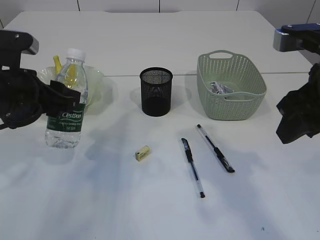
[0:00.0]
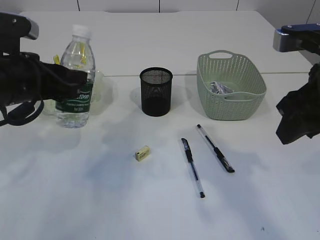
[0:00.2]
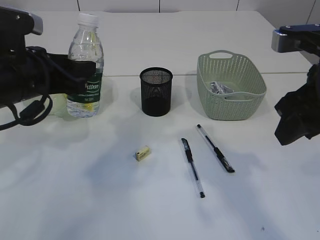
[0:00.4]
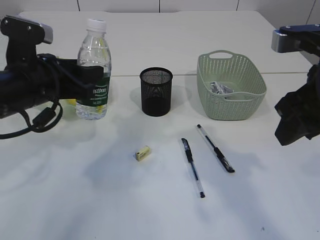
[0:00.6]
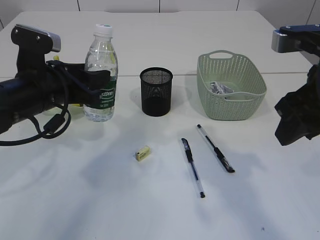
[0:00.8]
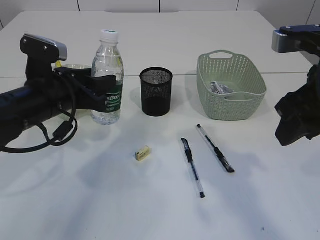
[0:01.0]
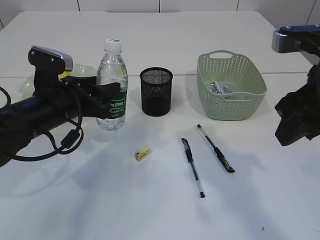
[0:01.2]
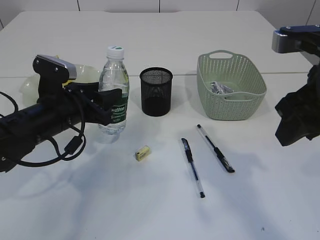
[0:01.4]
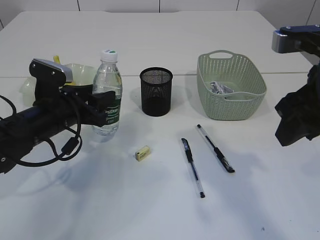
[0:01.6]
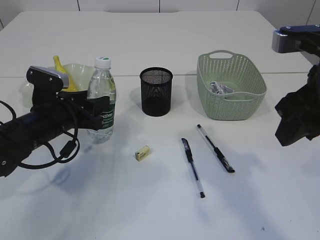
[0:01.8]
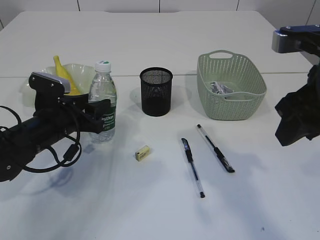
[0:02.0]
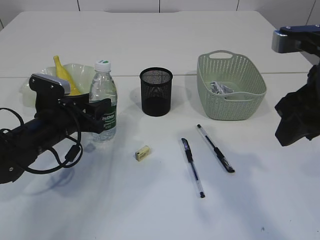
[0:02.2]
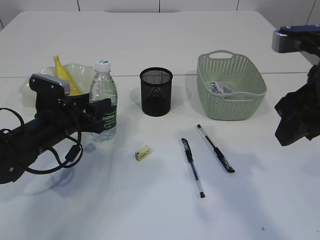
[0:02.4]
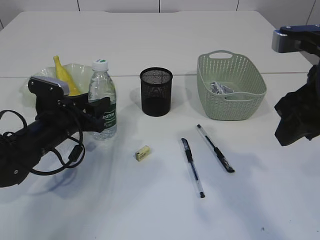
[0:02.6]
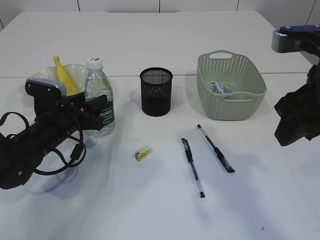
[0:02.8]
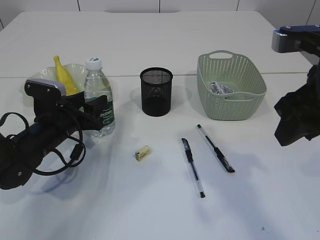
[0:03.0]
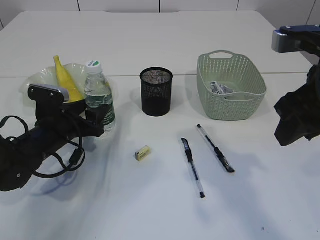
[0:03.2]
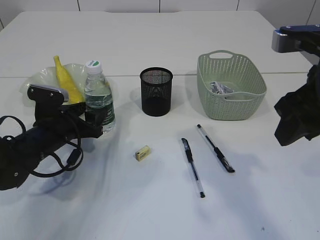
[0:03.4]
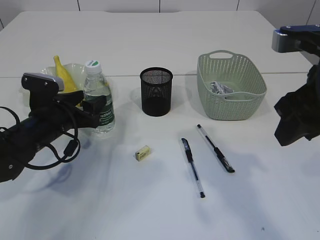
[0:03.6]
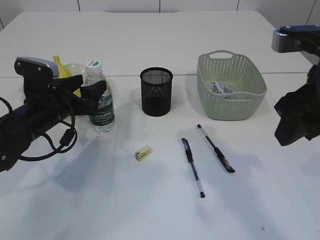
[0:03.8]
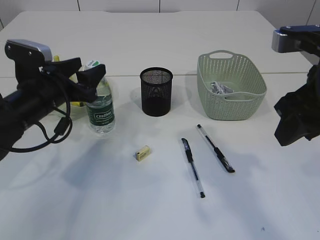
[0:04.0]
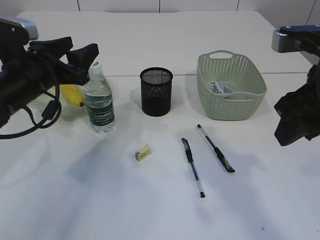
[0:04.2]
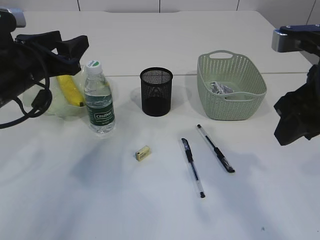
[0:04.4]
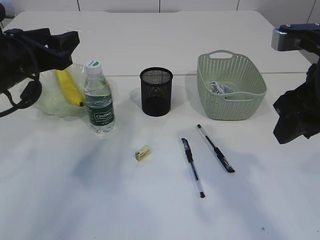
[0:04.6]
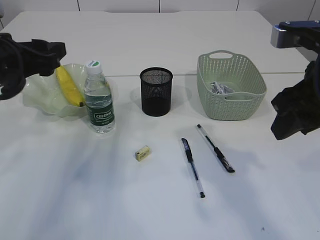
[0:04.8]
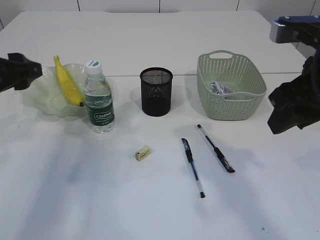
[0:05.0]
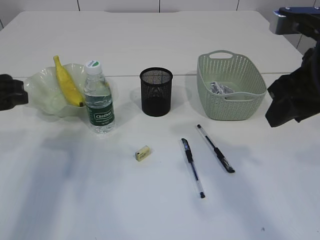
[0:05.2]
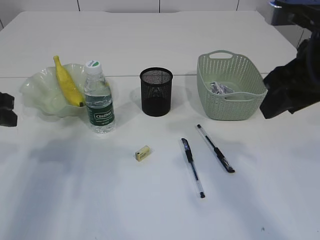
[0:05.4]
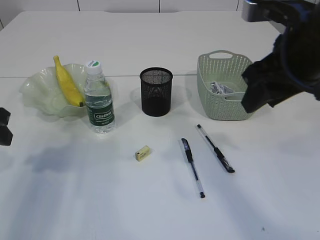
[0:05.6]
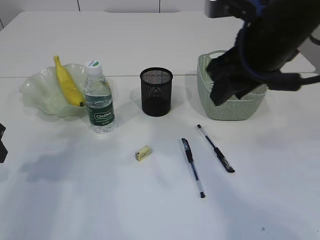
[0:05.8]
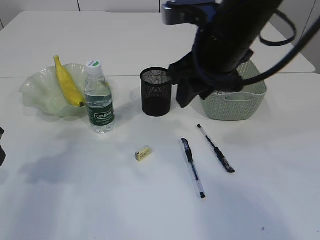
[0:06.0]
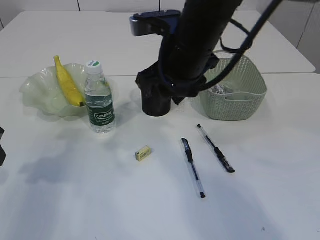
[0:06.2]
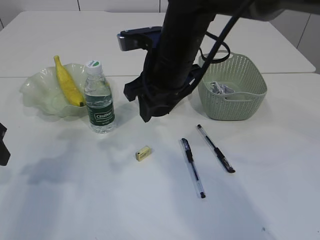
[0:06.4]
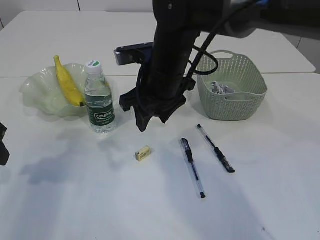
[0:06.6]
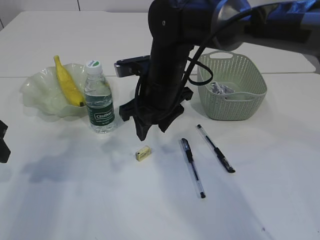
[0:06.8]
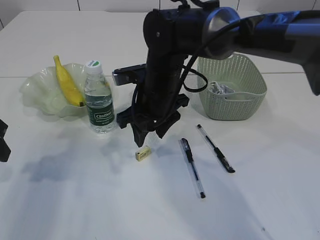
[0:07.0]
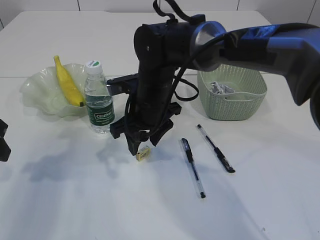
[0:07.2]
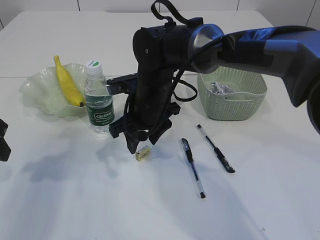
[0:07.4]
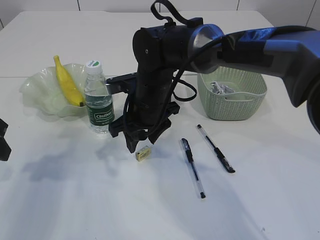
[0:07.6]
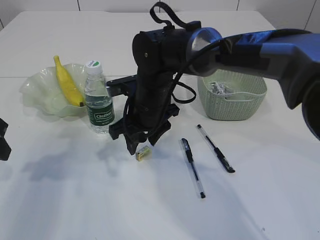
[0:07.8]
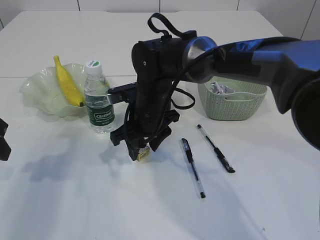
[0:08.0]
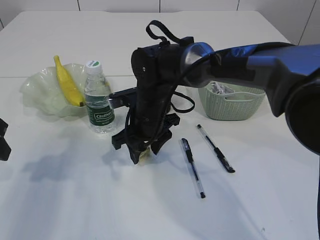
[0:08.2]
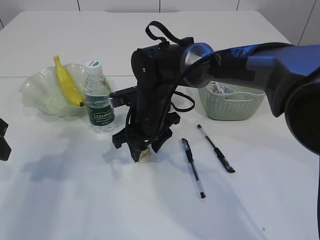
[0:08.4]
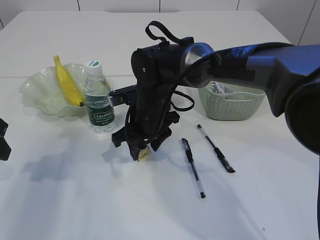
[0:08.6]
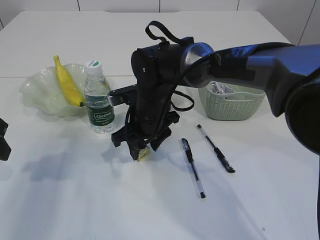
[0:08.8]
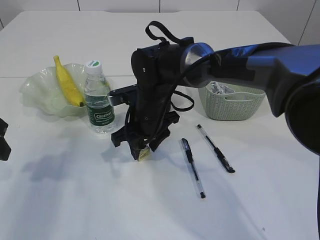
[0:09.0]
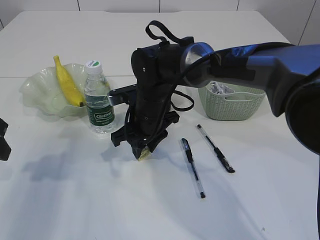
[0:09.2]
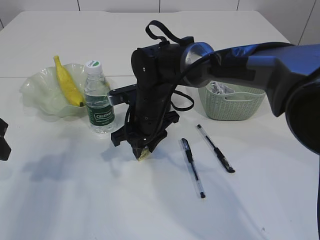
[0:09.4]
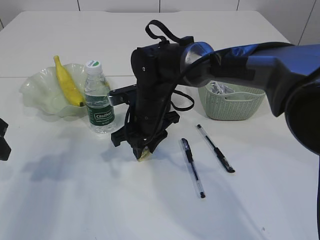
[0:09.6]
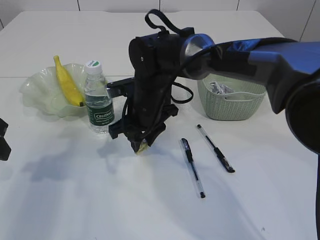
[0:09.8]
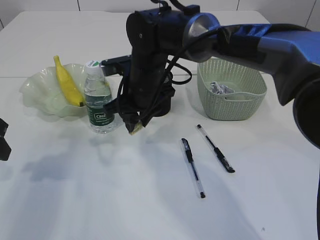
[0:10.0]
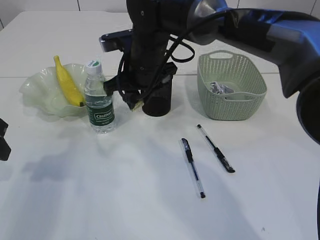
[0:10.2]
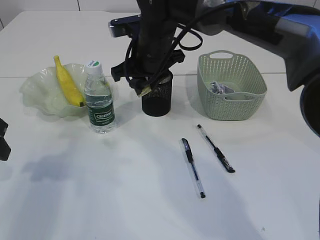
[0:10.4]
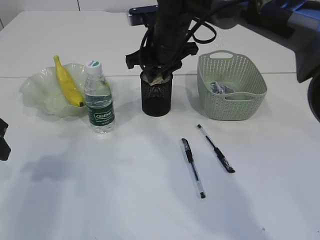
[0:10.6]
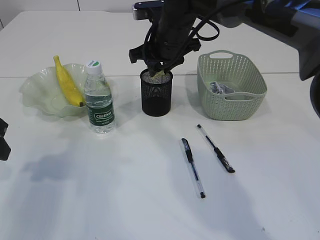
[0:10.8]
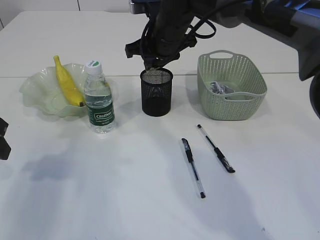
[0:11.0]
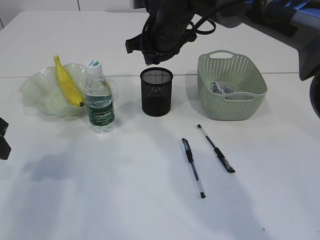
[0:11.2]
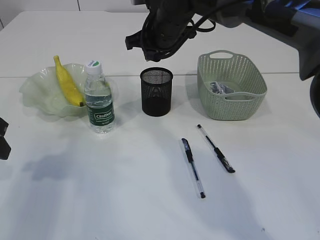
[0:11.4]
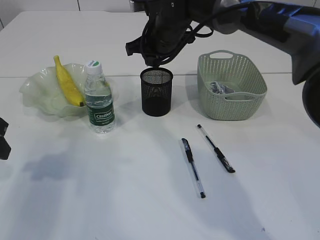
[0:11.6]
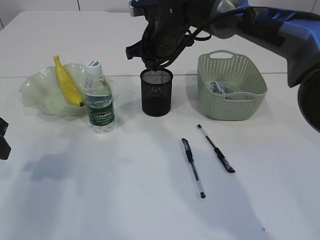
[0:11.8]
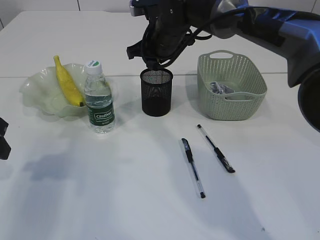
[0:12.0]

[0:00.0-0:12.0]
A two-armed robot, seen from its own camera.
Step, 0:00.0 to 0:04.2: Place the bottle.
Step, 0:04.4 to 0:10.0: Pick up the eraser.
0:00.0 to 0:01.6: The left gripper travels downward by some 10 cm.
0:01.6 to 0:03.0: The left gripper goes about 5 cm downward.
0:03.0 to 0:04.4: The left gripper goes some 15 cm upward.
0:04.4 to 0:06.0: The left gripper heads to the left and backward, covering approximately 10 cm. The right gripper goes some 15 cm to the left and forward.
0:06.0 to 0:07.6: The right gripper goes approximately 20 cm downward, to the left and forward.
0:07.6 to 0:09.0: The grippers stay close to where they were, moving slightly.
0:09.0 to 0:10.4: The right gripper heads upward, covering roughly 10 cm.
0:10.4 to 0:12.0: The right gripper heads forward, covering some 5 cm.

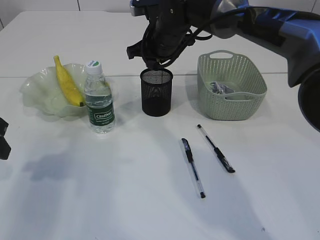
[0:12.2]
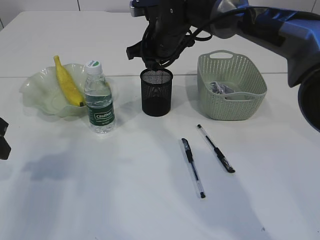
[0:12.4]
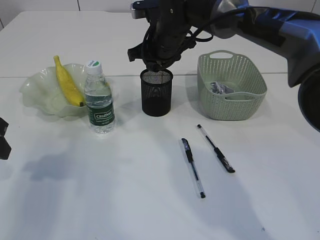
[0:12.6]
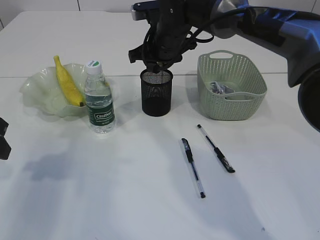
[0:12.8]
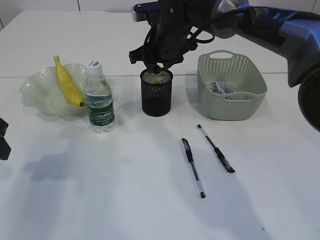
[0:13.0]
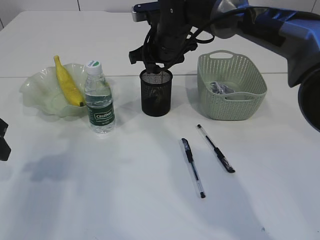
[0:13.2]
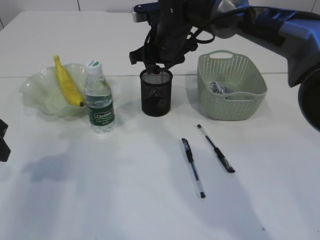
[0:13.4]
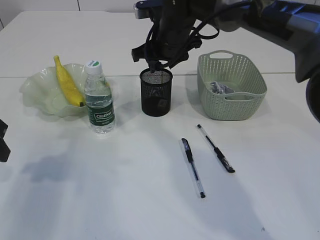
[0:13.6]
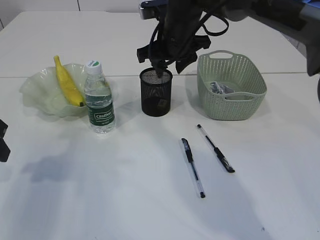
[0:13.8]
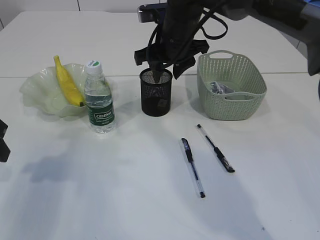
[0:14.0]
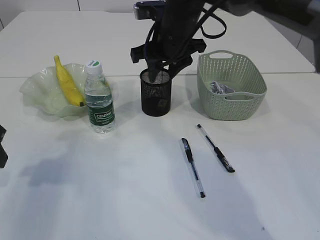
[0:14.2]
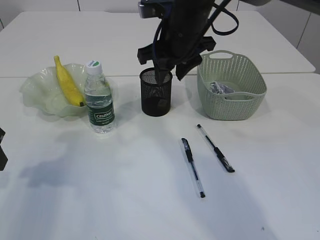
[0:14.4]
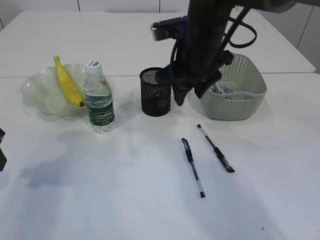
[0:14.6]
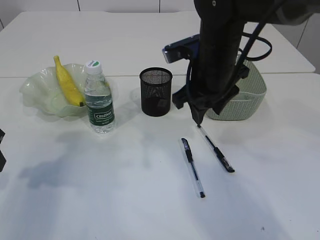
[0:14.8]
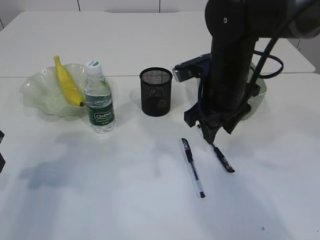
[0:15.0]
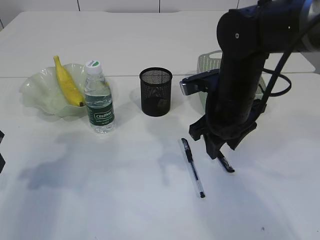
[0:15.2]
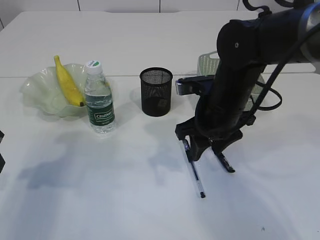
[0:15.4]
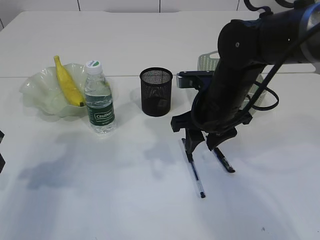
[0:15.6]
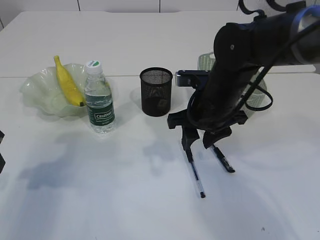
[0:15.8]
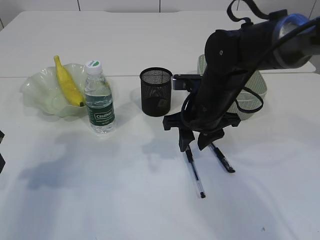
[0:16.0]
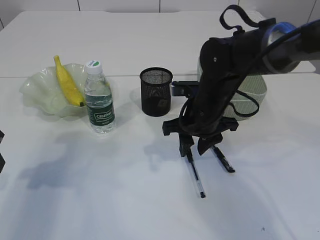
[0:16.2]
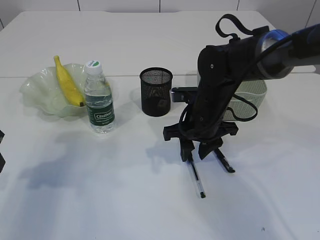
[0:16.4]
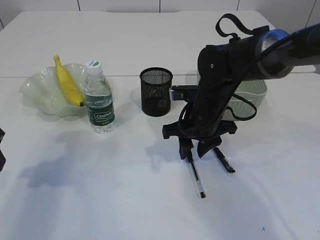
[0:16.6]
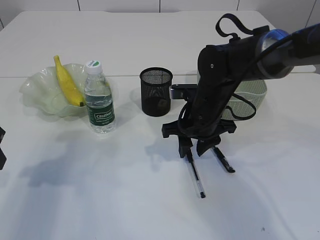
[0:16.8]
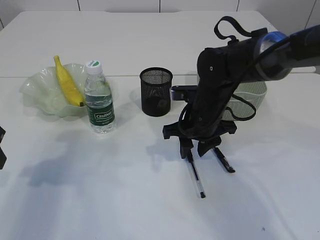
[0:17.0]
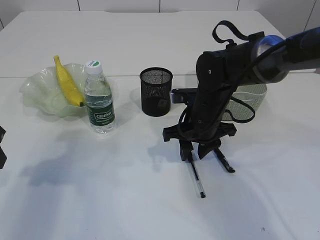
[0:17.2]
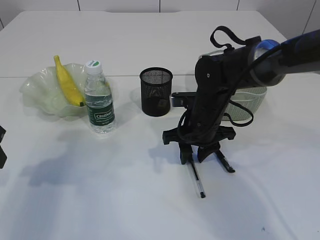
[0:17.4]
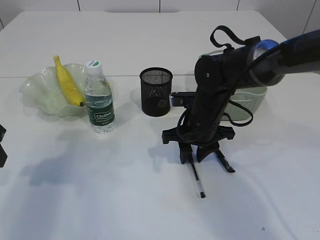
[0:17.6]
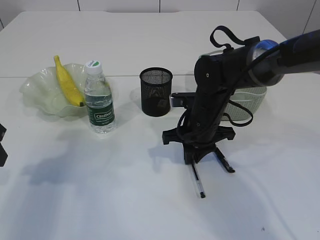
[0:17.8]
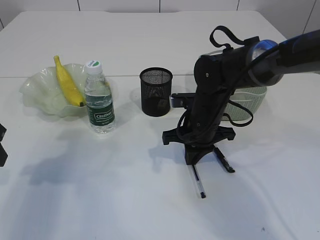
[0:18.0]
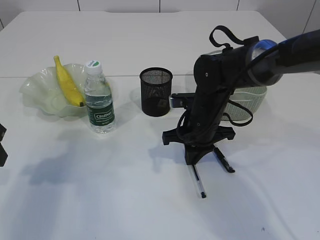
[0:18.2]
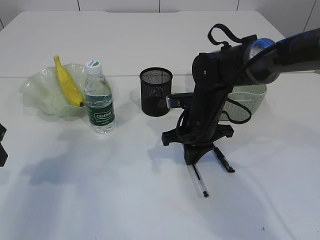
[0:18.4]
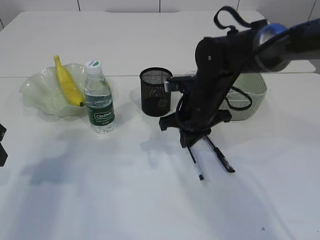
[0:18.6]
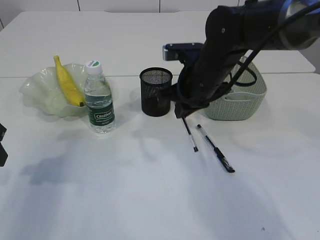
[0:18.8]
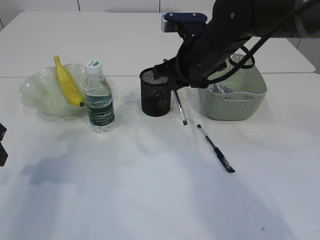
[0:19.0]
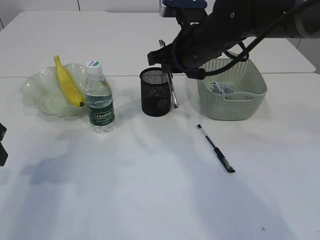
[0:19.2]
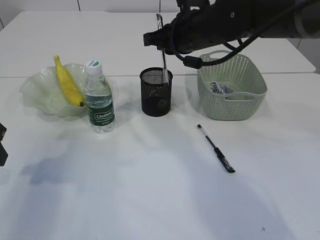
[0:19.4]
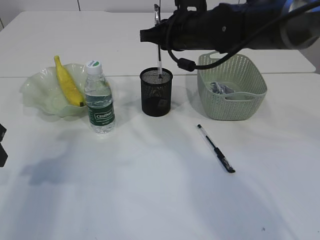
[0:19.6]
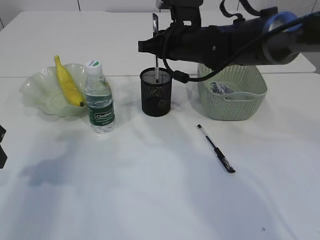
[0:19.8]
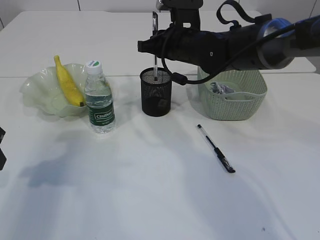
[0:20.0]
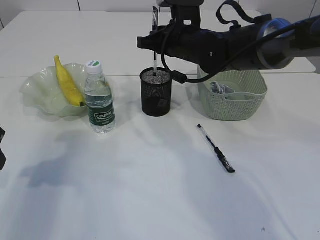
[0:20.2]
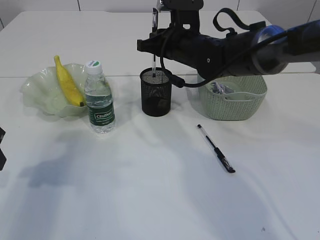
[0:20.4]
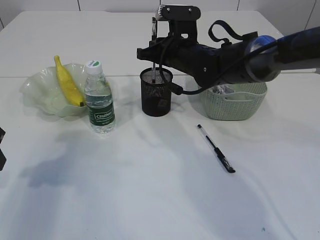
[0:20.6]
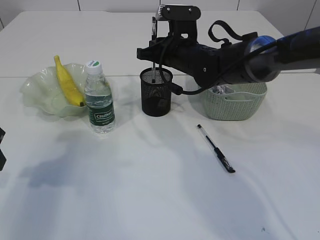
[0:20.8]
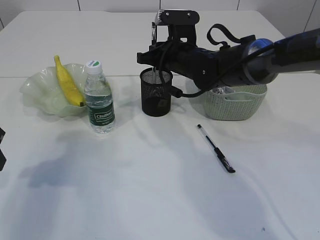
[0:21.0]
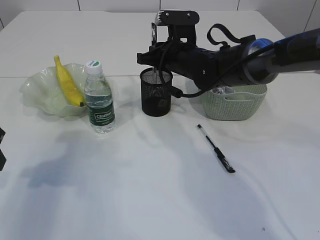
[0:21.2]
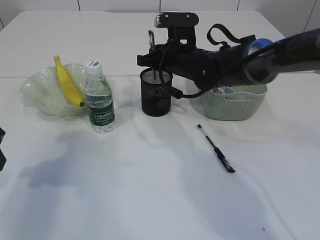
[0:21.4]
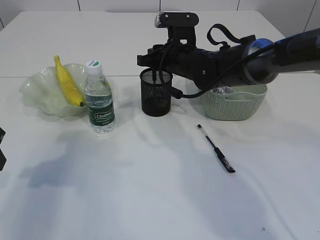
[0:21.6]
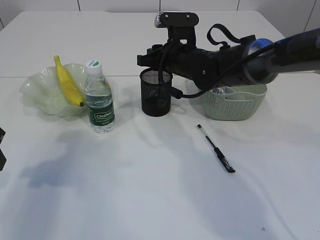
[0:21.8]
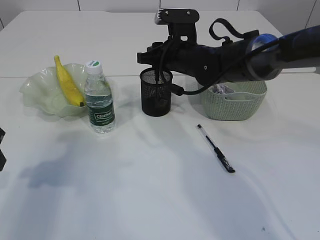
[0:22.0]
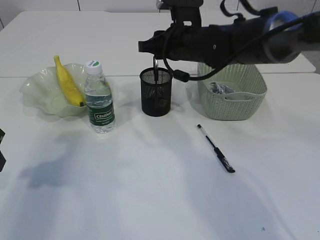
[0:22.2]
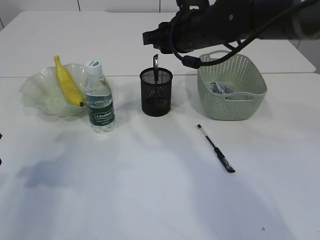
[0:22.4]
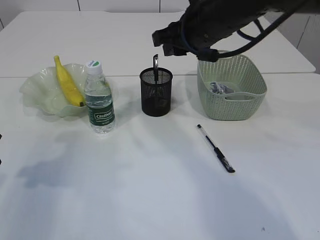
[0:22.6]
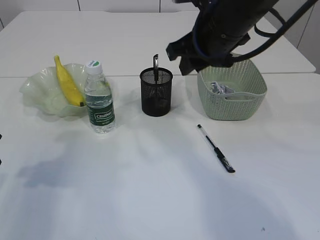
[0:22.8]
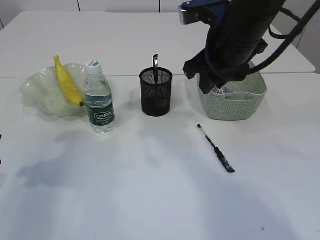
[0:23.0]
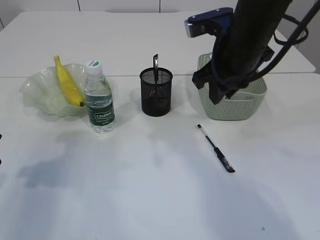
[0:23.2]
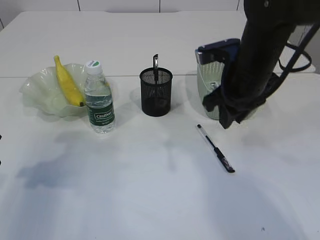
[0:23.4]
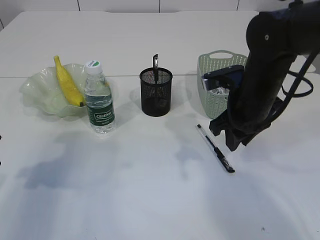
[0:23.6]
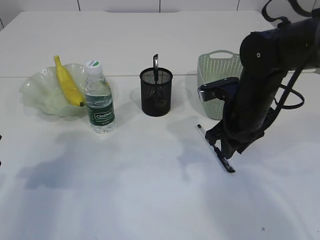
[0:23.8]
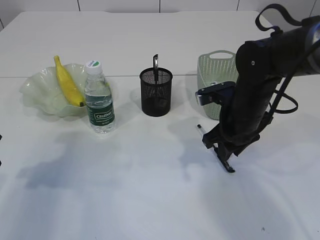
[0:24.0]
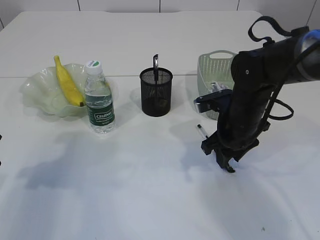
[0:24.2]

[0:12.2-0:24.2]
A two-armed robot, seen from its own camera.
Step, 0:12.2 to 0:14.2: Place the eraser into the pen holder.
Step, 0:14.4 to 0:18.6: Pick up the pen with right arm.
Step, 0:18.8 to 0:22.2: Place the pen into the pen holder.
0:12.2 to 0:13.8: The grippers make only small movements.
0:13.8 to 0:15.2: The right gripper moves backward, to the right and downward, roughly 15 cm.
0:15.2 to 0:16.6: The right gripper goes approximately 5 cm downward.
0:16.6 to 0:18.2: The right gripper closes its fingers.
0:18.2 to 0:19.8: The right gripper moves upward and forward, roughly 15 cm.
0:19.8 to 0:21.2: The grippers move only a little.
0:21.2 to 0:22.6: The right gripper is displaced upward and backward by about 10 cm.
0:22.6 to 0:24.2: The right gripper travels downward and to the right by some 15 cm.
